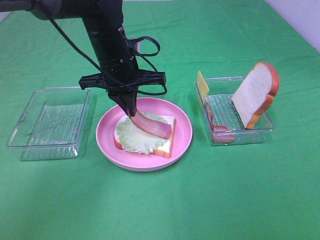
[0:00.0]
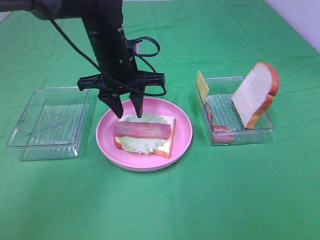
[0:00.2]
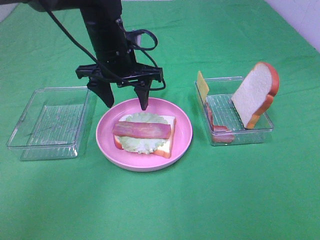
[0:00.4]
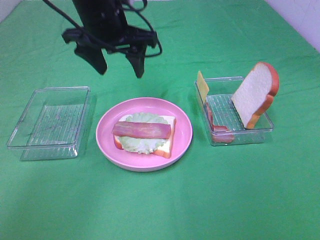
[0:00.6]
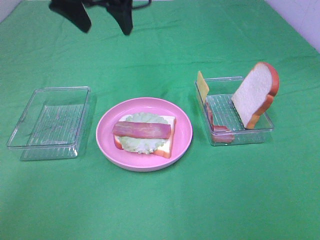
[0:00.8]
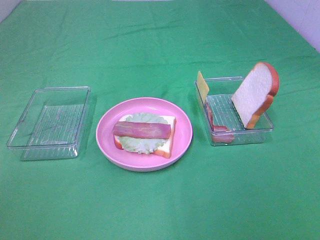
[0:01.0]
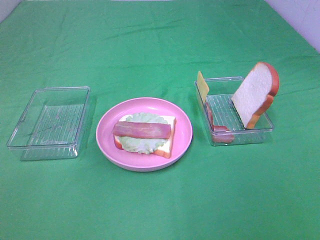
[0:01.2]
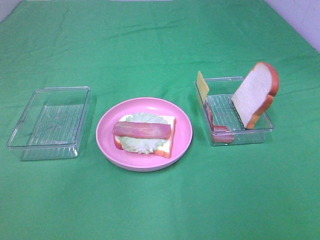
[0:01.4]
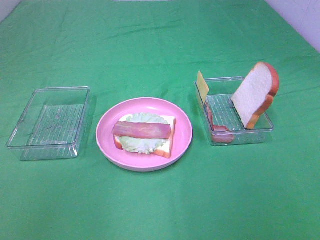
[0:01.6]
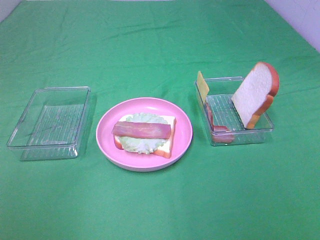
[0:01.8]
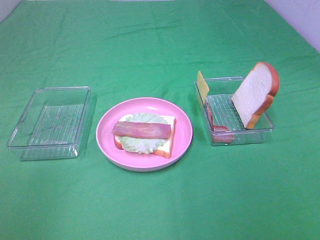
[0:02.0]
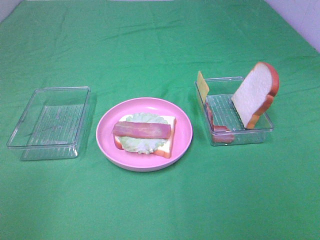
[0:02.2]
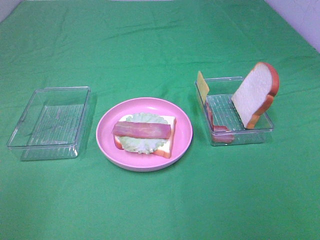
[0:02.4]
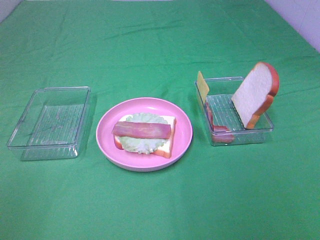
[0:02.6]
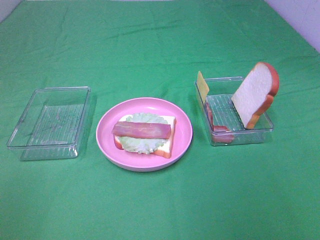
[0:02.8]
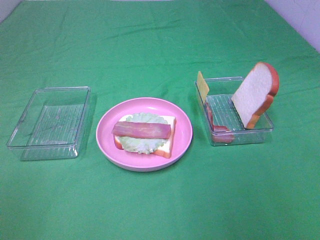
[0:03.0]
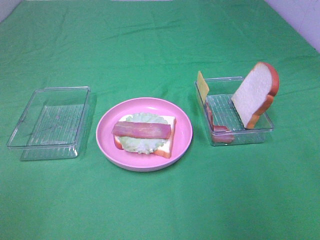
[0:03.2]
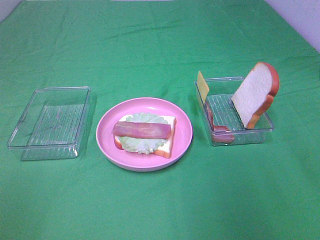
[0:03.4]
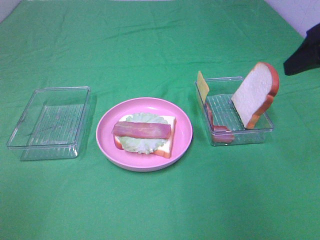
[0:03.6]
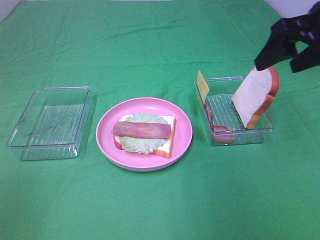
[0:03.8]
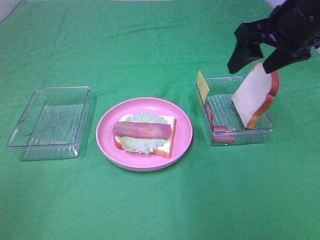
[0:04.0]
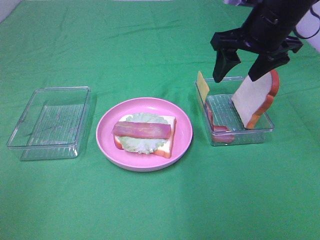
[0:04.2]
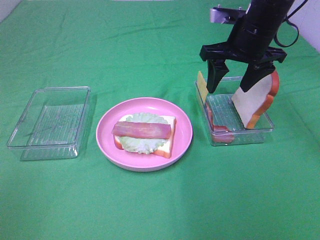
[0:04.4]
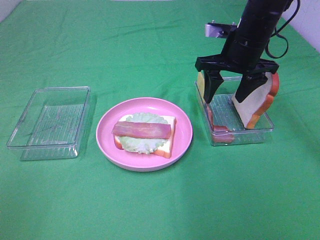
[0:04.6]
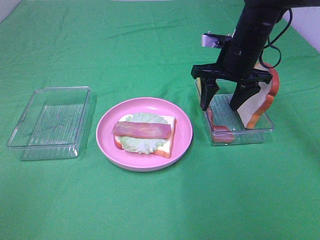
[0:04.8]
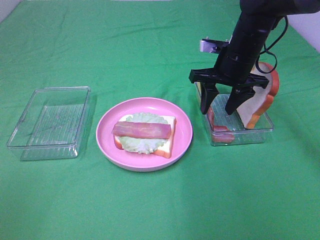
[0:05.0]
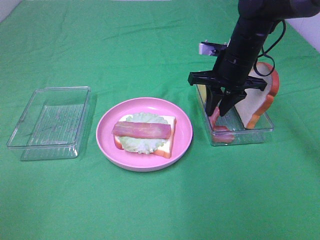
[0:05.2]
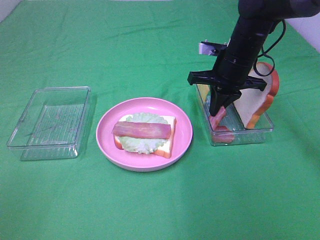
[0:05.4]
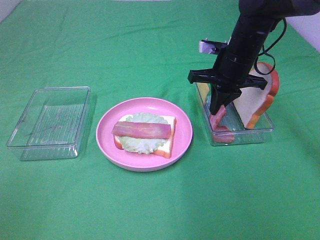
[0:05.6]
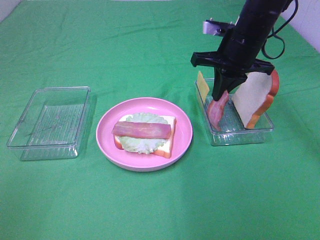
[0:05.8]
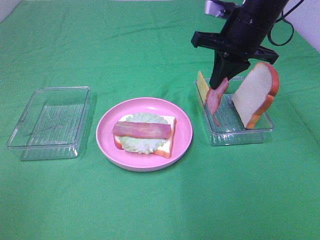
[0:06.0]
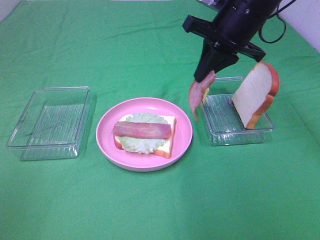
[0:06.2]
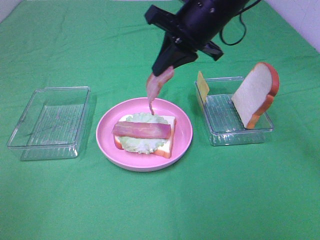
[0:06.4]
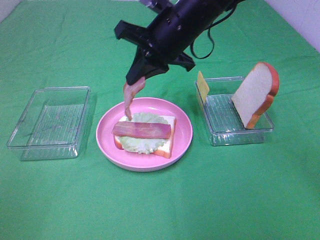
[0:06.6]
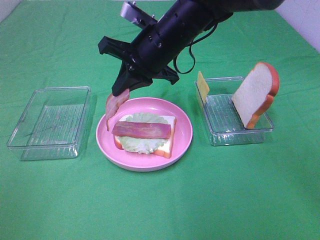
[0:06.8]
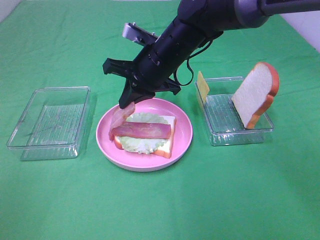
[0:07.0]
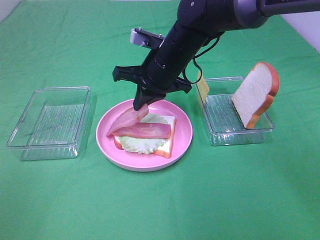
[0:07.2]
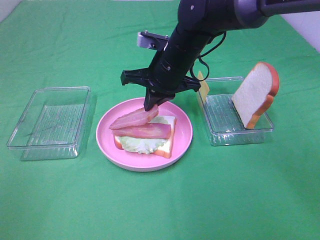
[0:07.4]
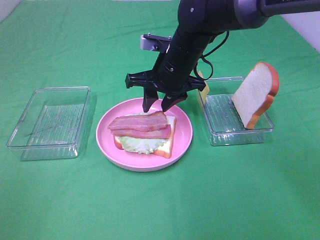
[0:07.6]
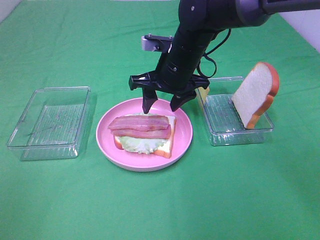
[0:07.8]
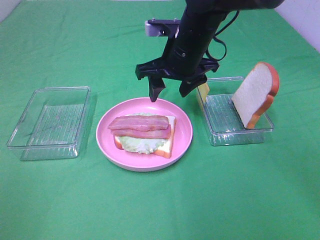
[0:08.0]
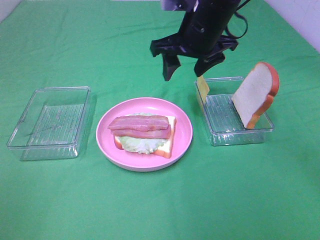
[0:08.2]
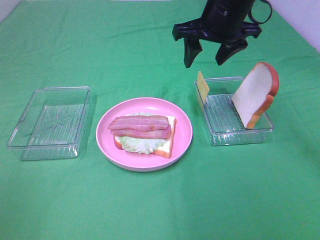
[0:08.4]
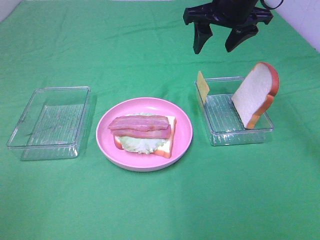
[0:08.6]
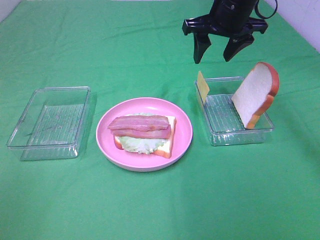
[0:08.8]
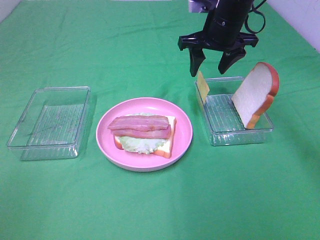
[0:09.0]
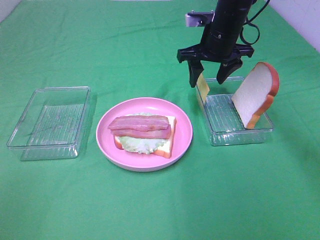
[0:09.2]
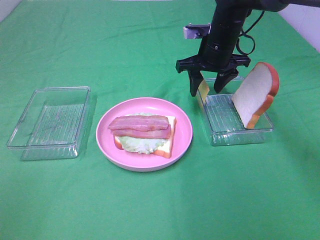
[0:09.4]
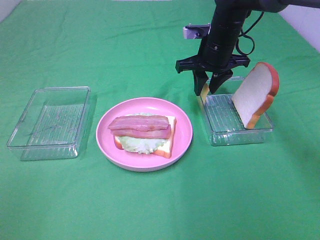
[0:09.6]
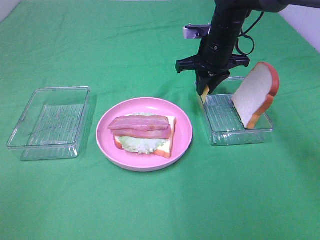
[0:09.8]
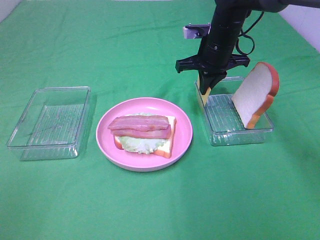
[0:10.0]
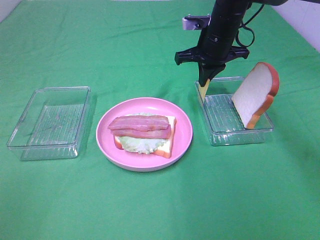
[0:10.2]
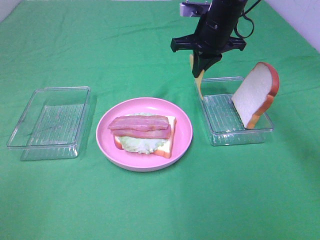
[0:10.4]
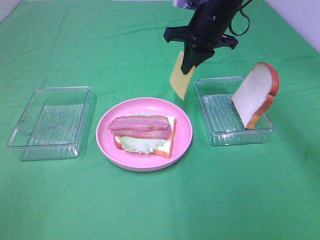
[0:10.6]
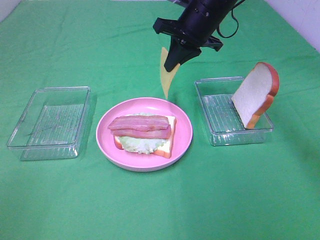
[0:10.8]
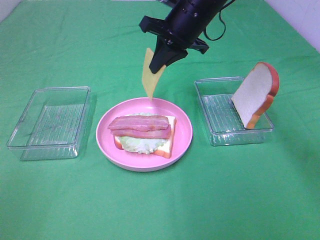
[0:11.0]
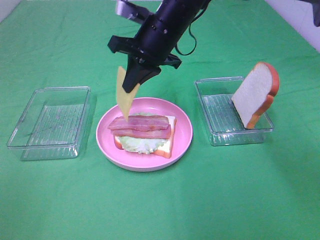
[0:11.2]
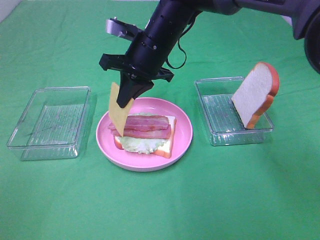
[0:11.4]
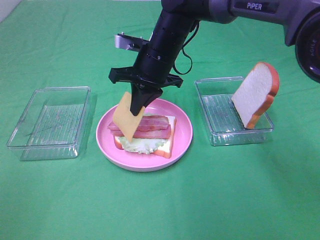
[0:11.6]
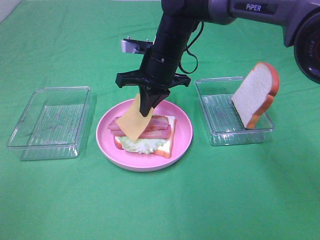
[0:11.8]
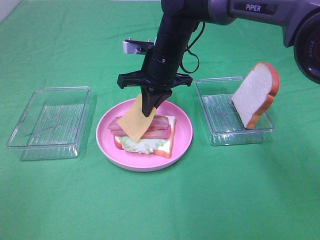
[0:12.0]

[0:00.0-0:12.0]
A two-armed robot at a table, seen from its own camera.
Task of the whole recording: Make sandwiches.
Step, 0:00.4 to 0:05.6: Right hand:grab the bacon.
Step, 0:05.8 to 0:07.6: Right hand:place bacon on bacon.
Step, 0:07.8 to 0:10.0: Right hand:grab the cheese slice.
0:00.0 to 0:01.6: The left gripper moves backward, upward and to the left, about 40 cm, and opens up.
0:03.0 to 0:04.4: The right gripper moves forward, roughly 35 cm.
0:04.4 to 0:06.0: The right gripper goes downward and returns, about 5 cm each way, and closes.
0:06.0 to 0:07.6: The right gripper shifts approximately 15 cm to the left and downward, and opens.
0:07.6 to 0:09.0: The right gripper heads to the right, forward and upward, covering roughly 10 cm.
0:09.0 to 0:10.4: The right gripper closes.
0:10.4 to 0:12.0: The right gripper heads to the left and backward, covering roughly 10 cm.

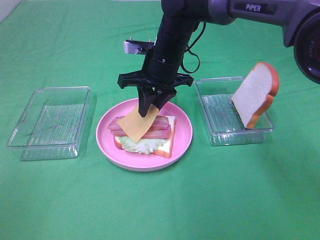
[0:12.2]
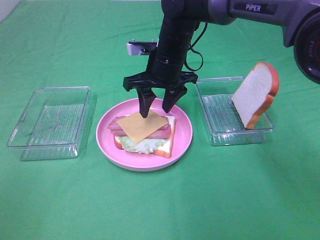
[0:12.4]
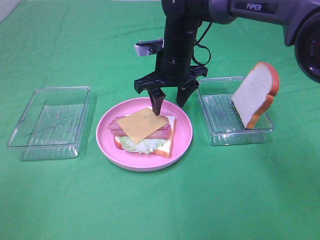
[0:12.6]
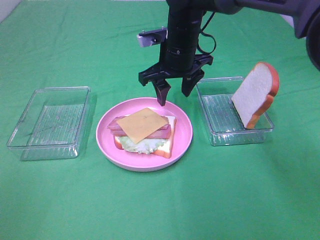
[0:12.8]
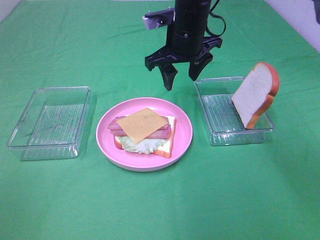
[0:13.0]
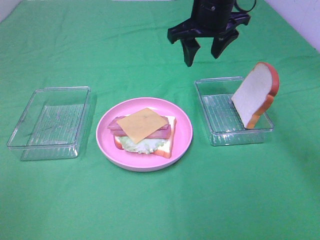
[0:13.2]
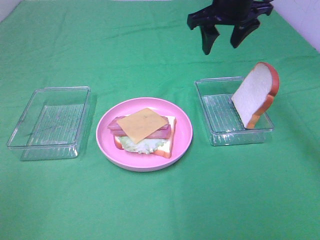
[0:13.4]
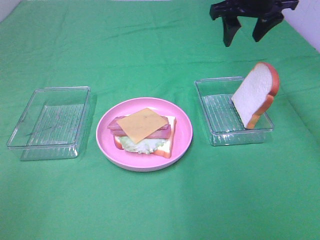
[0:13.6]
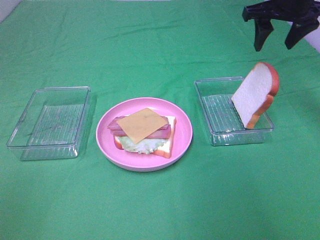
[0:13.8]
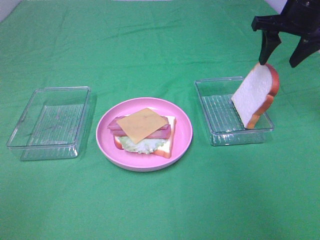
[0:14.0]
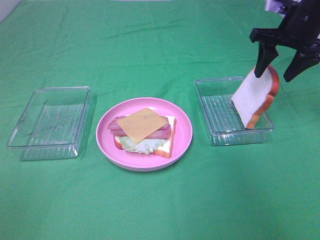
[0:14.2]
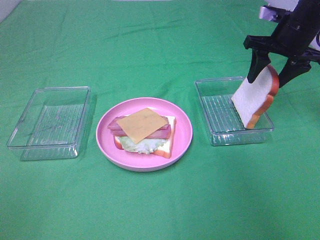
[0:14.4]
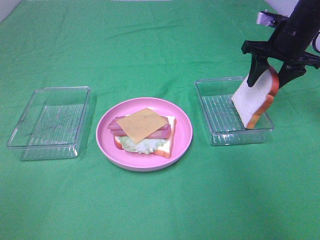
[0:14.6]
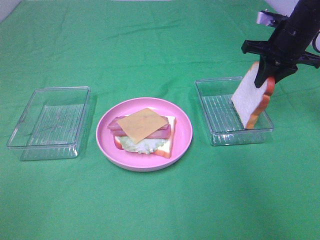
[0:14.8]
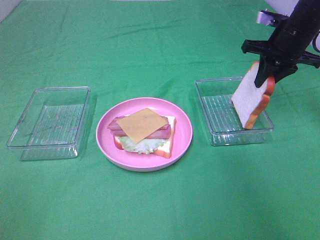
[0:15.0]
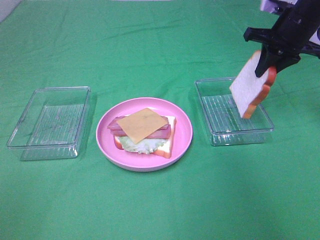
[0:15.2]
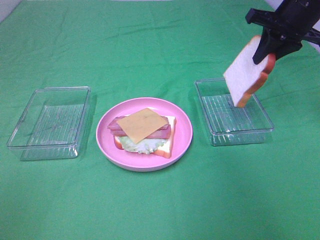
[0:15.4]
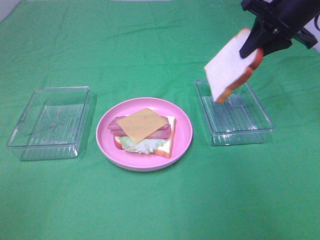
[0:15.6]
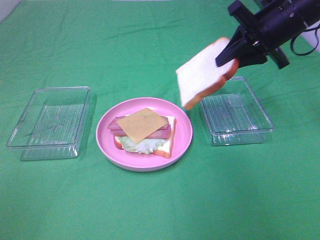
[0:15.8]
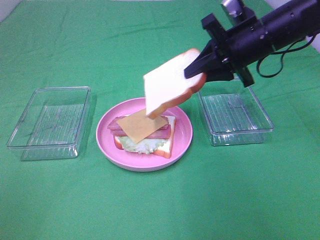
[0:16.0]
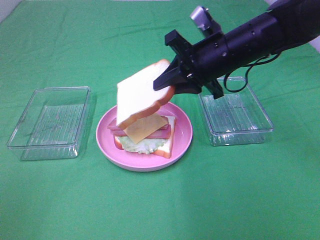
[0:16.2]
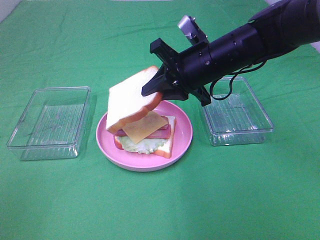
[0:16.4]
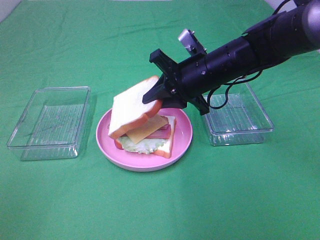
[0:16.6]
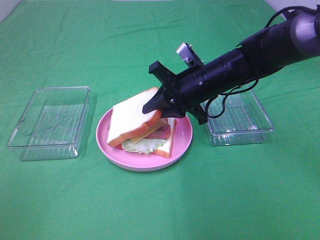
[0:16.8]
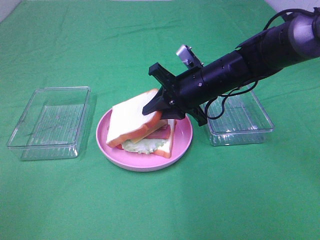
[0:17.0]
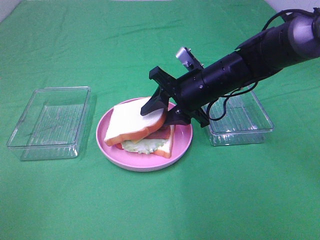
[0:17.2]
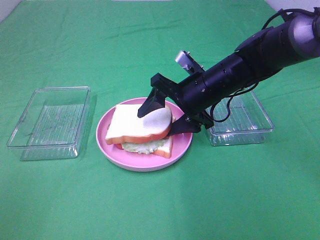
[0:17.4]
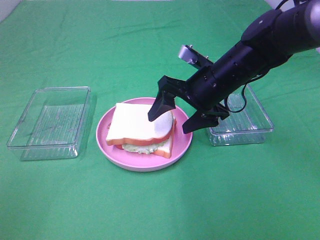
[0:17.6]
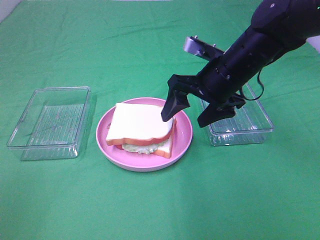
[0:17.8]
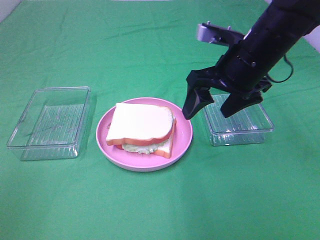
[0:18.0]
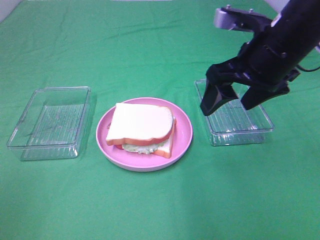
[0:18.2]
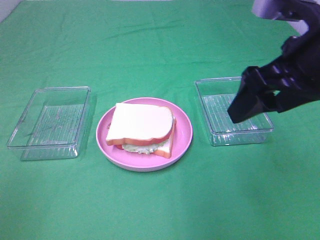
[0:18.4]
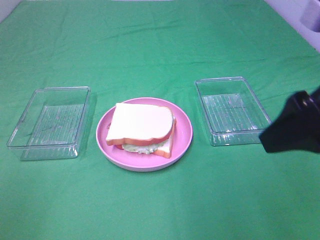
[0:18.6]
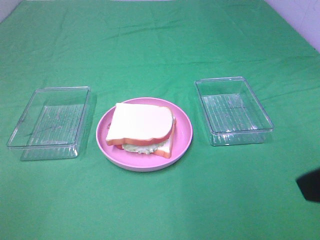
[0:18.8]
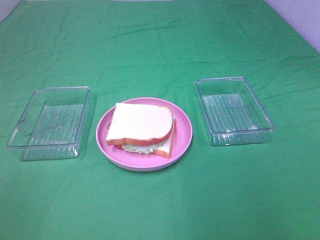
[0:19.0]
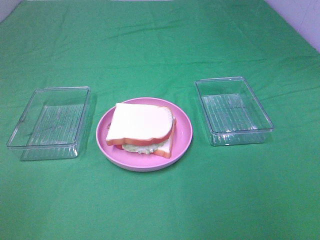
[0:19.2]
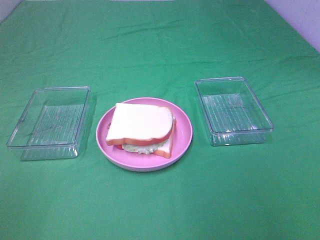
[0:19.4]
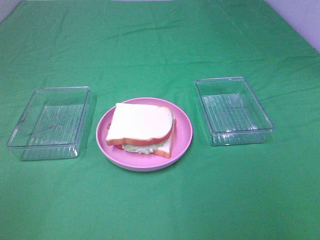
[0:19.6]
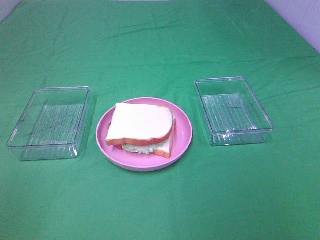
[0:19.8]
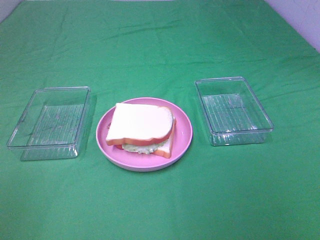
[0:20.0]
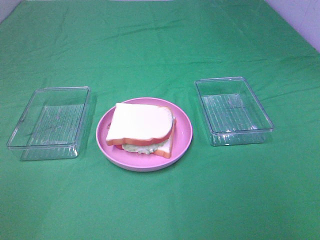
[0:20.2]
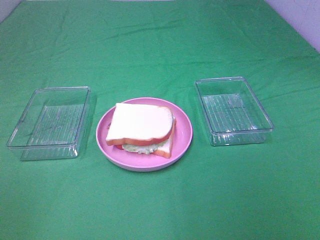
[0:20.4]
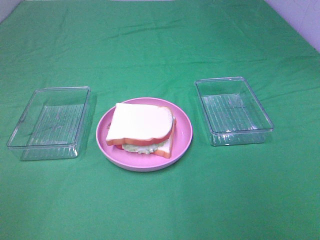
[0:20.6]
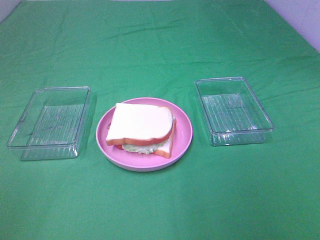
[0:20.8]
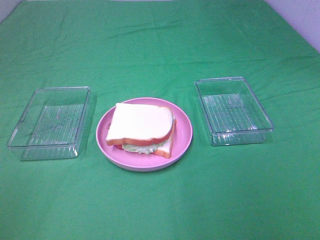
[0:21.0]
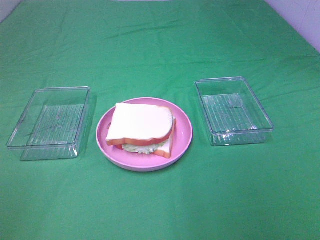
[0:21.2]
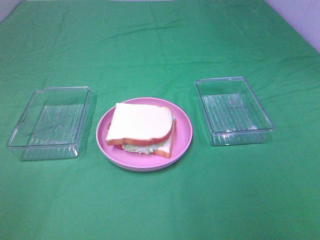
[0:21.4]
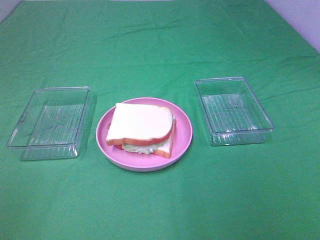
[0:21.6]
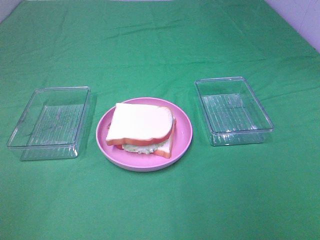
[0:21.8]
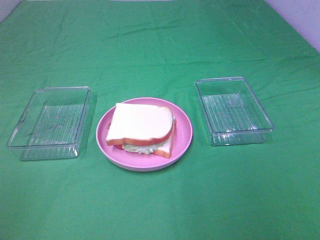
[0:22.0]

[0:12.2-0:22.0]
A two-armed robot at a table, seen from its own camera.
Task of the whole recording: Make sandwiches.
Step, 0:12.6 to 0:15.0: Right hand:grab the bread slice.
Step, 0:15.2 to 0:17.8: Right hand:place the bread slice on the cheese slice.
0:12.2 to 0:13.6: The right gripper heads to the right and upward, covering some 20 cm.
0:13.6 to 0:15.0: The right gripper travels to the right and downward by some 10 cm, and closes up.
0:15.0 to 0:16.4: The right gripper travels to the left and backward by about 20 cm.
0:16.4 to 0:17.8: The right gripper opens its fingers.
0:17.8 to 0:19.2: The right gripper moves backward and to the right, approximately 35 cm.
0:20.6 to 0:22.0: Both grippers stay put.
